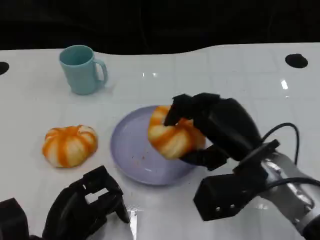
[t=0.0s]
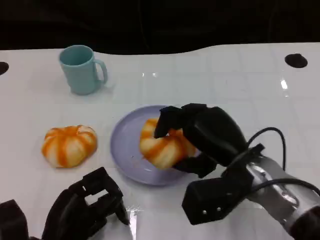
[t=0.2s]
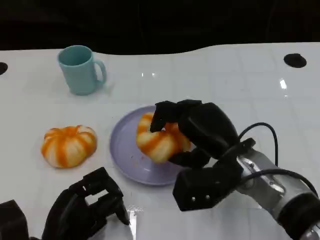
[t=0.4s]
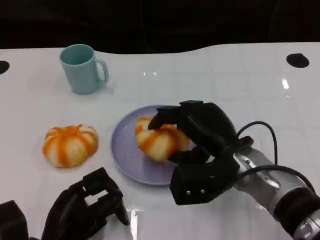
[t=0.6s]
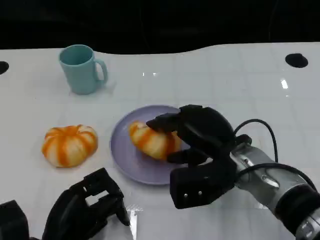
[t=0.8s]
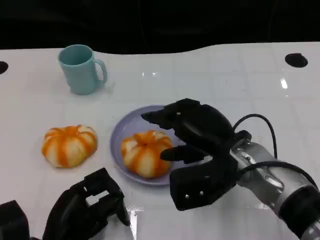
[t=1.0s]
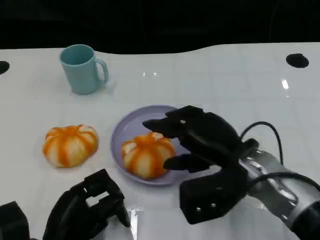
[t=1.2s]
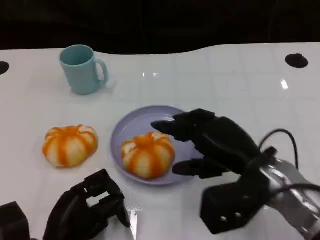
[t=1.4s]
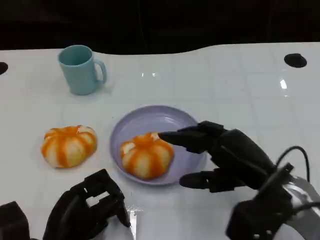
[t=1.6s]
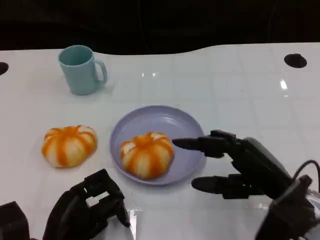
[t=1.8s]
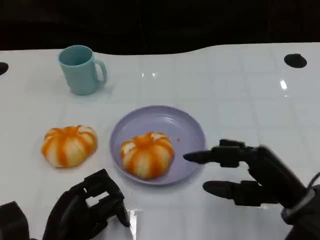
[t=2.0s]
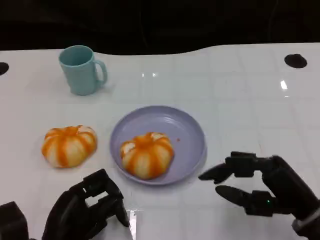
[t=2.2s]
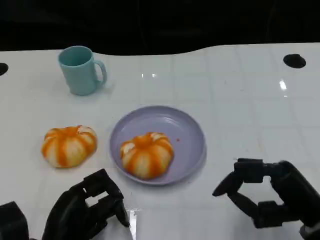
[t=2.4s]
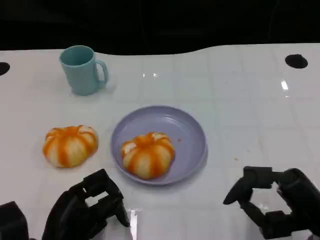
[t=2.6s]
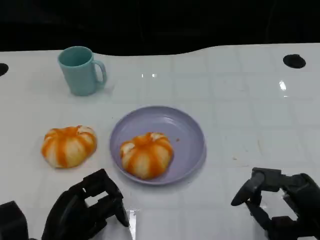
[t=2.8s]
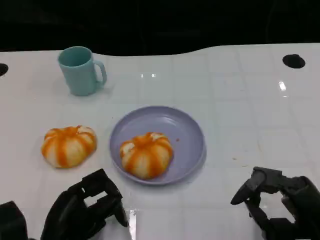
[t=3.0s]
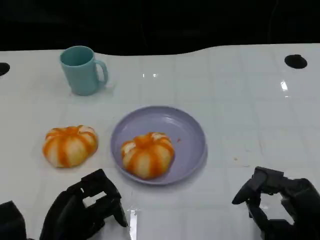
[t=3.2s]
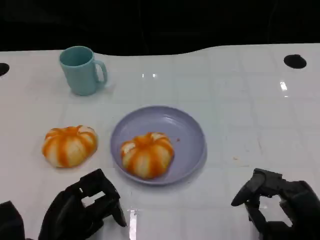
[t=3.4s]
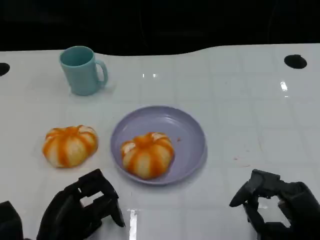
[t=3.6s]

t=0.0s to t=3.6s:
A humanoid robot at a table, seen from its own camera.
Task of the whole recording: Grasp the bread from the table and place it into the plate.
t=0.0s to t=1.8s: The right hand moves to the right, approximately 5 cm.
t=1.8s to t=3.6s: The right hand is displaced backward by some 5 cm.

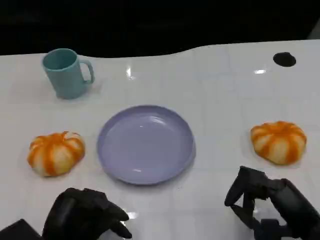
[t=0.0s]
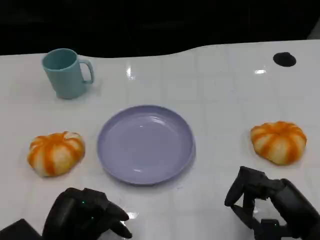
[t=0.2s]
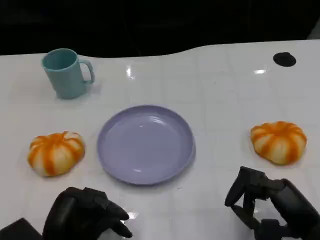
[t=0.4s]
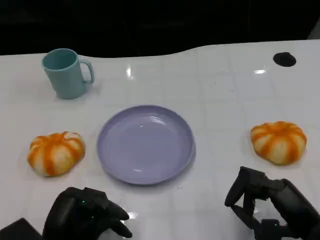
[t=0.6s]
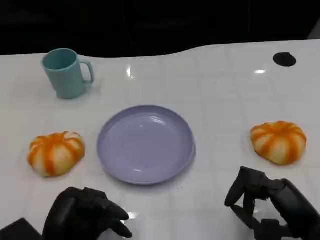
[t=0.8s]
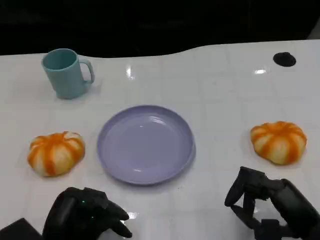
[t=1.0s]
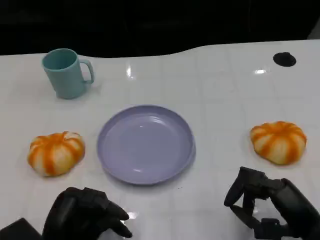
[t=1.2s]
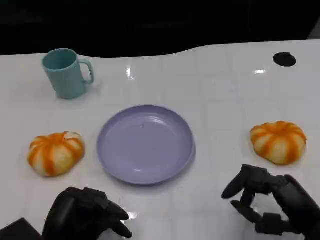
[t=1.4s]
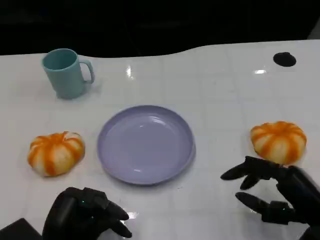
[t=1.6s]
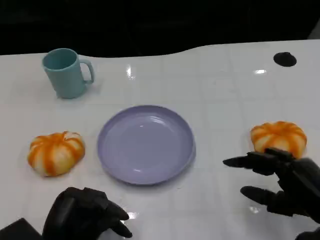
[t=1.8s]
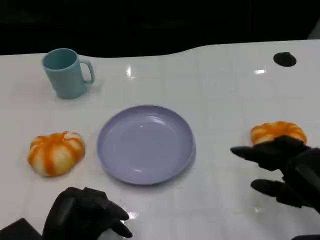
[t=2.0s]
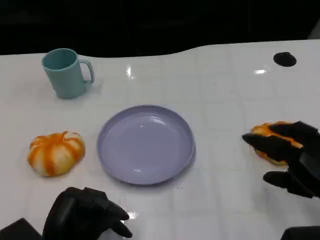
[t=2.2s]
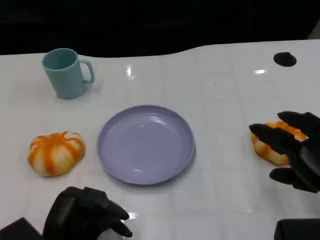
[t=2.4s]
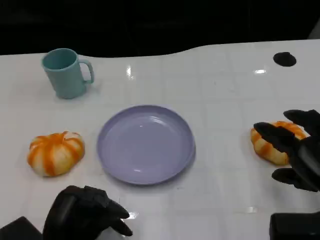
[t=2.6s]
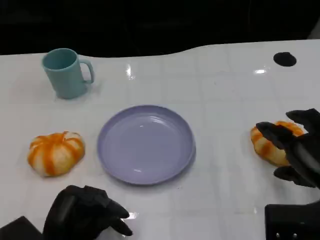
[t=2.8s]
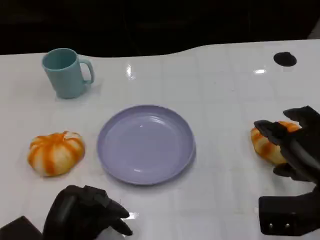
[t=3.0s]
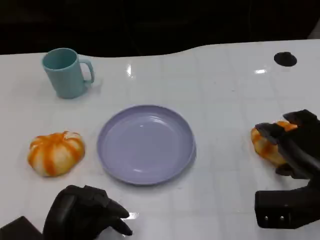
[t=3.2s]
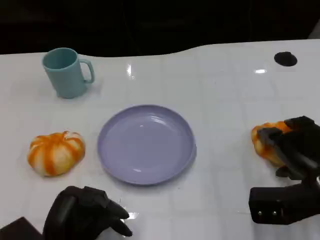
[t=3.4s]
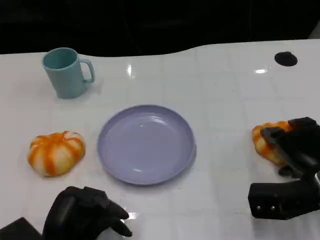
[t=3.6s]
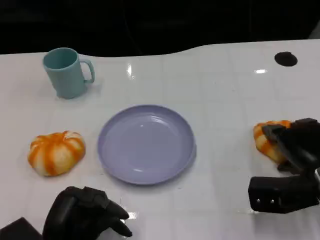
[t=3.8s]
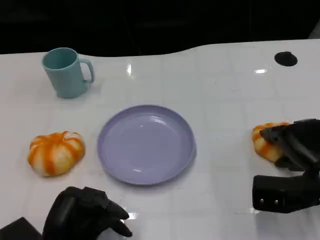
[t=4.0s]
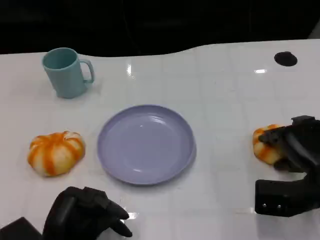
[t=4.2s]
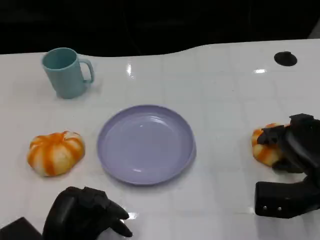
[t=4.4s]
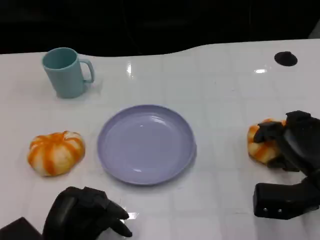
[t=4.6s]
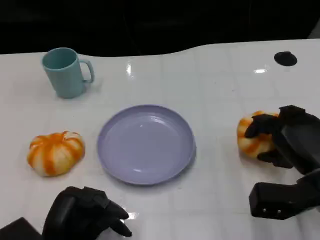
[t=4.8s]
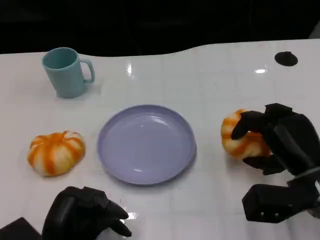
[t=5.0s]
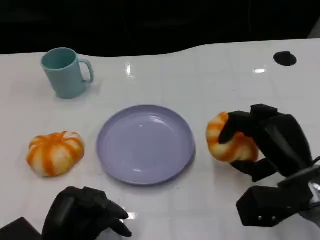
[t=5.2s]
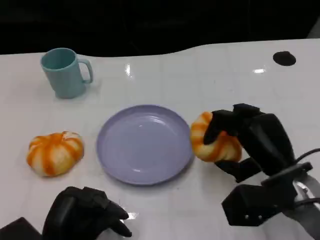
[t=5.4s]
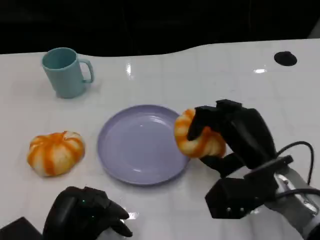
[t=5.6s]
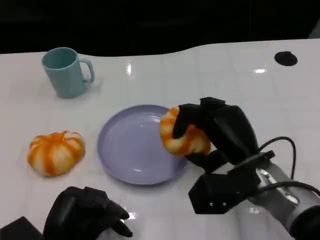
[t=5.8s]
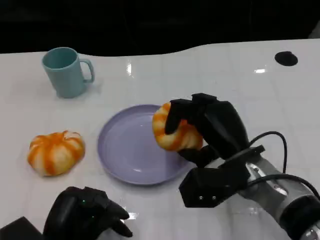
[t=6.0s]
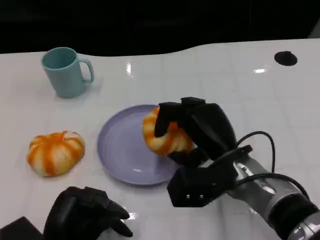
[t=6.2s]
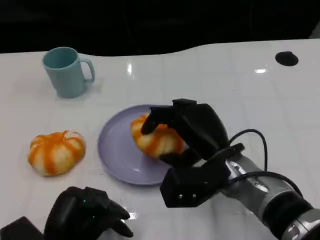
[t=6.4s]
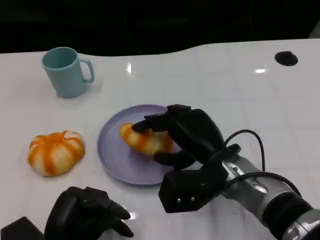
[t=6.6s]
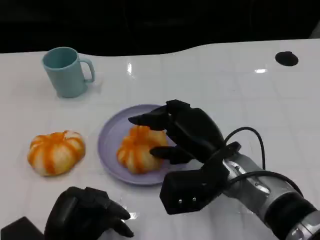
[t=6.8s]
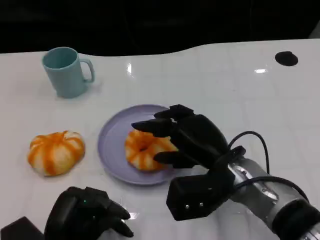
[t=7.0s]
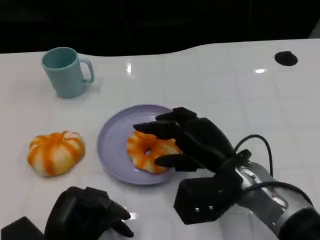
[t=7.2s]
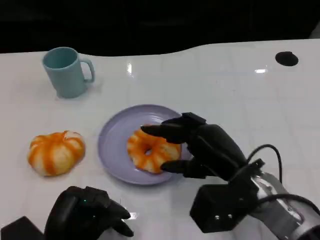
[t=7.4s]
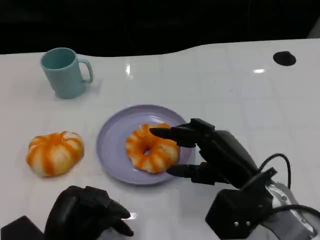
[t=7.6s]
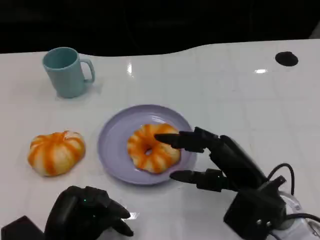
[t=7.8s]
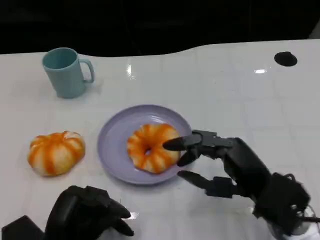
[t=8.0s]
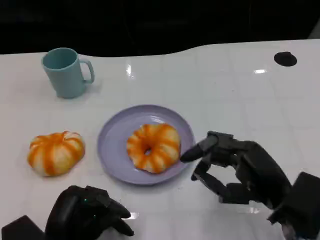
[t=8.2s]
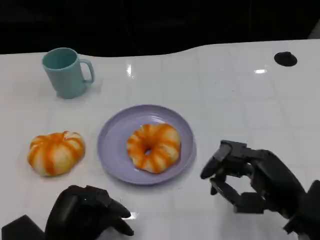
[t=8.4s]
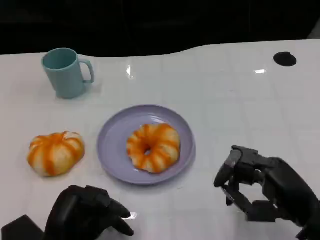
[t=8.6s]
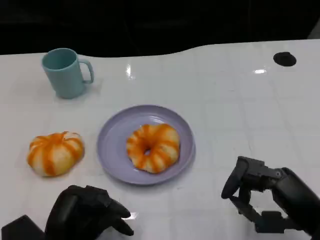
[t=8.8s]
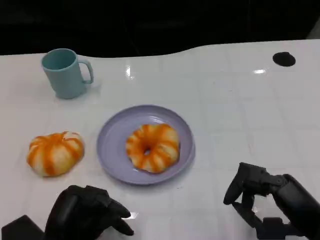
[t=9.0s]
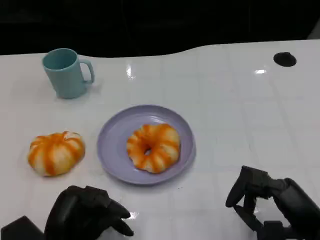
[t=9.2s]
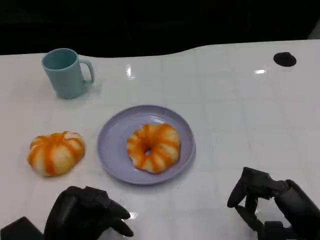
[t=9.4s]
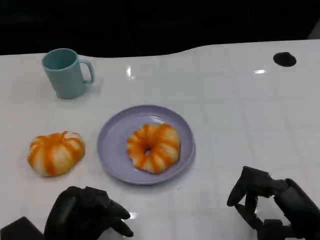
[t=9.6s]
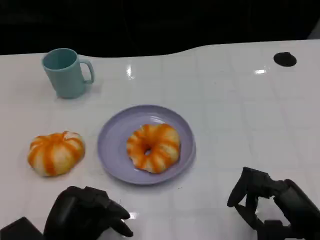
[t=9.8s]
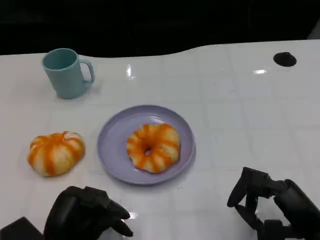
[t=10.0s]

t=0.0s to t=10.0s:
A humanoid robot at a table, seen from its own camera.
Task of the whole recording: Grasp the bread from the table and place it into the plate.
t=0.0s to t=1.4s: Both hands stay about where they are.
t=1.4s to t=2.8s: The right hand ends up some 5 cm from where it was.
t=2.8s to t=4.2s: The right hand shifts approximately 5 cm forward.
t=4.2s to t=5.8s: The right hand heads to the left, covering roughly 10 cm.
t=5.8s to t=7.2s: The hands move only a little.
t=7.2s to t=8.6s: The right hand moves to the right and backward, approximately 15 cm.
t=8.6s to t=10.0s: The hands move only a little.

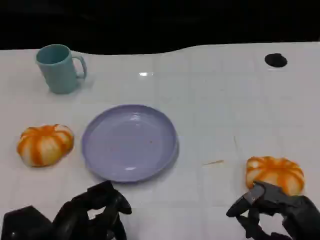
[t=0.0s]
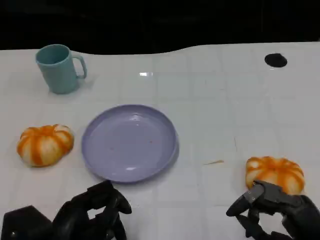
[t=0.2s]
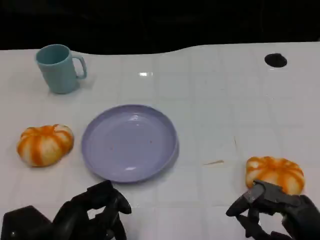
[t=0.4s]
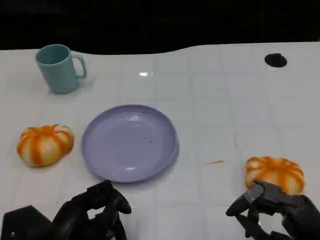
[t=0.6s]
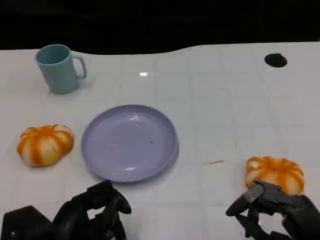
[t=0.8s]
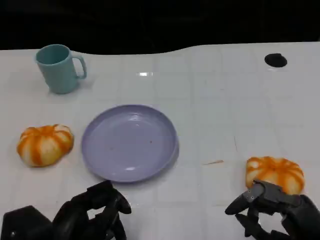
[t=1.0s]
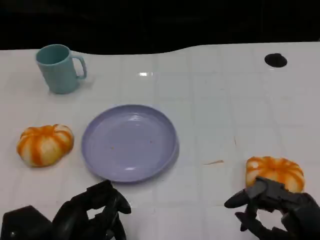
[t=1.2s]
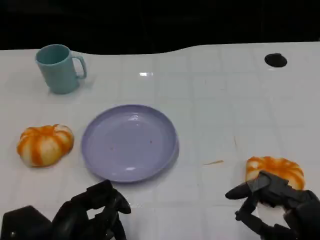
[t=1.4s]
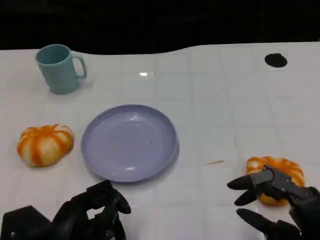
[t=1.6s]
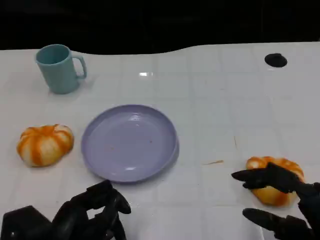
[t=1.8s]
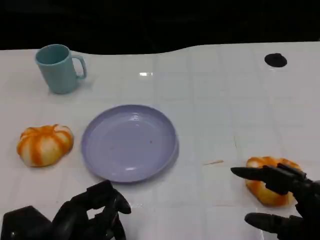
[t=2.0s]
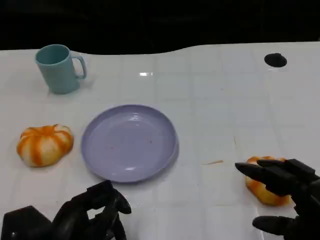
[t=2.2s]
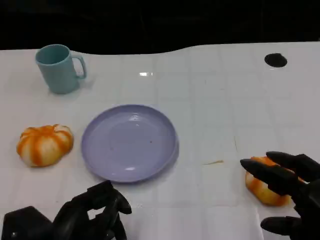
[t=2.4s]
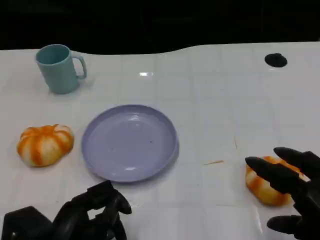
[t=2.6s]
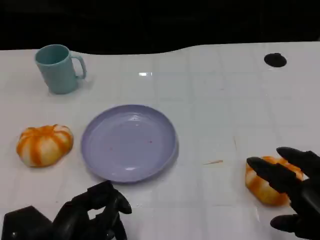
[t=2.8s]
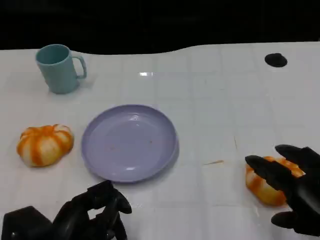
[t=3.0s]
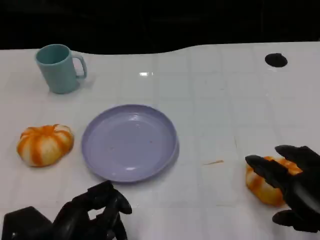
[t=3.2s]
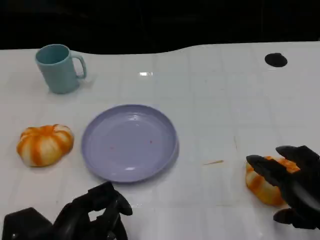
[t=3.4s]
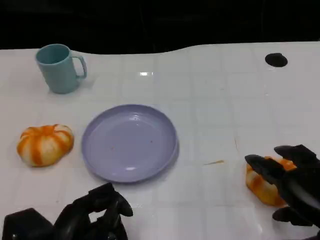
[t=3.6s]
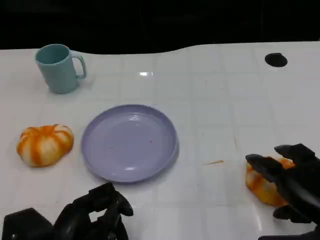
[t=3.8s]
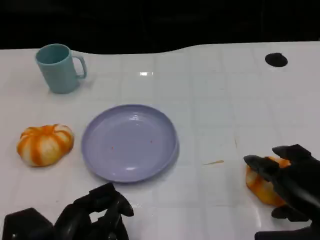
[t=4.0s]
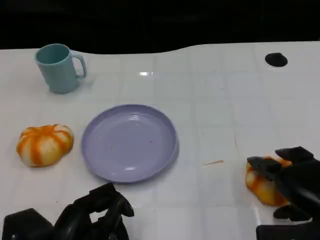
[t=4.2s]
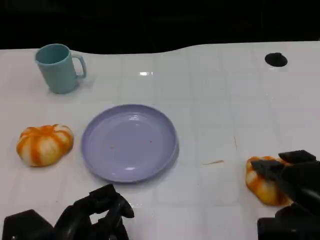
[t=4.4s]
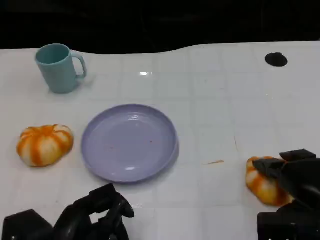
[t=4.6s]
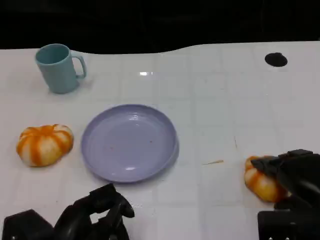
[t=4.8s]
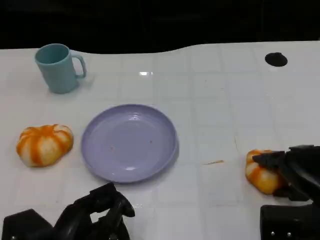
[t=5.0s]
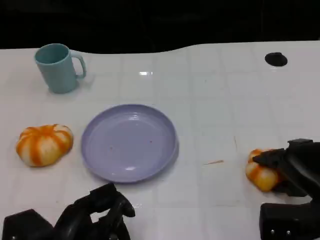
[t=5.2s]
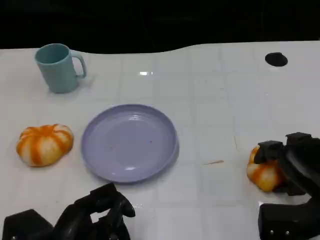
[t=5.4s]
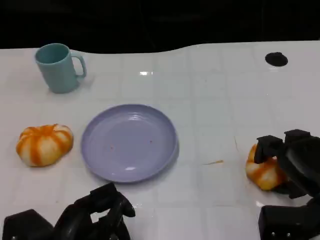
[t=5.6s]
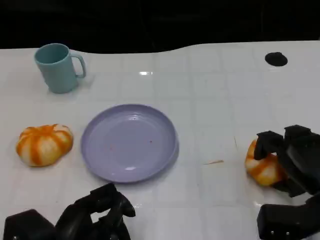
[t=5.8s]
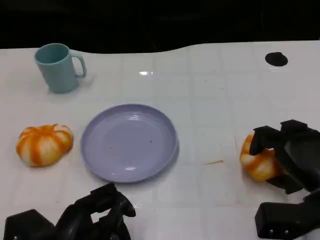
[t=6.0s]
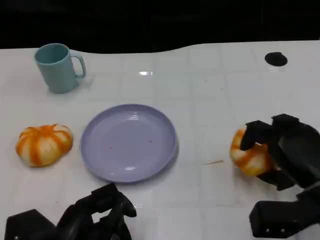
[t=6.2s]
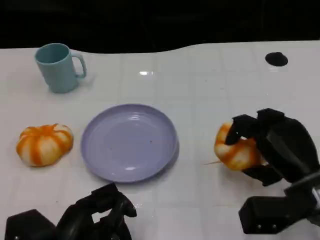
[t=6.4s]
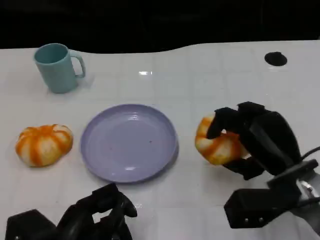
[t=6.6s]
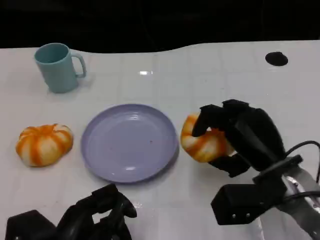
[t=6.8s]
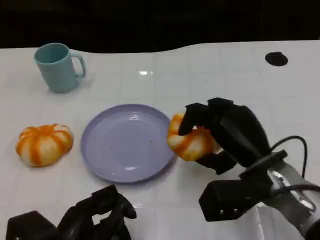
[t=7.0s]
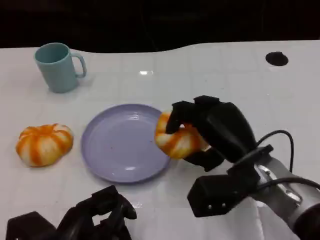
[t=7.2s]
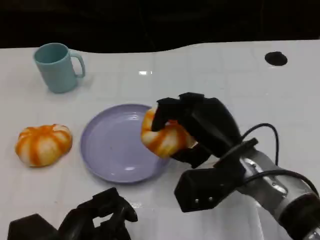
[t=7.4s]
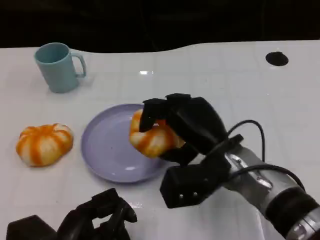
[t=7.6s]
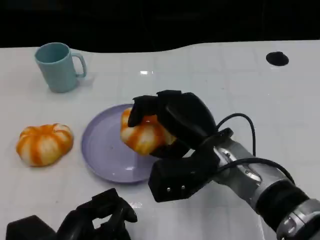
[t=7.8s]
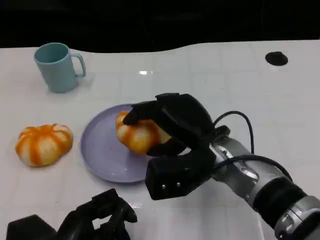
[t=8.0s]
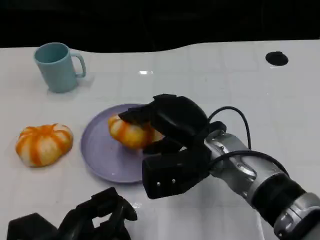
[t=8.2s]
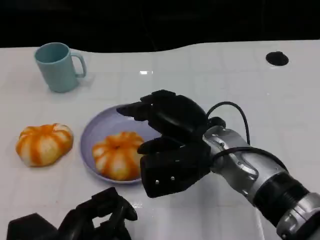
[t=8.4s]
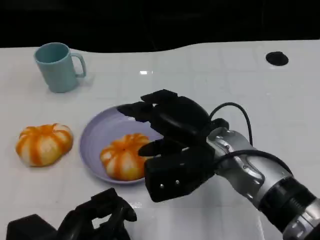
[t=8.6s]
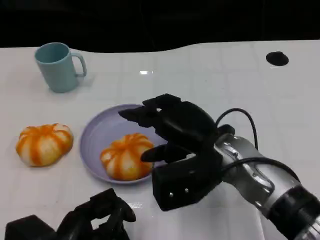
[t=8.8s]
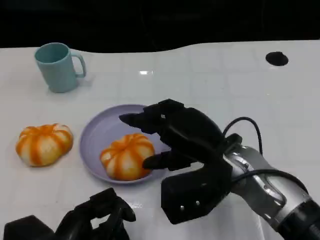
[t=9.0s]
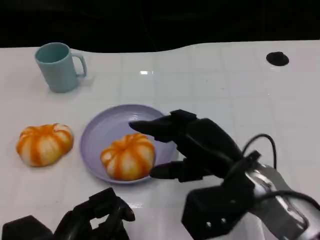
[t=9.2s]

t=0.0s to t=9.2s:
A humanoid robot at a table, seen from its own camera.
Task of the whole recording: Grasp the bread from the table and place it into the plate.
t=0.0s to t=1.6s: There are only small adjustments of the hands.
t=3.0s to t=4.6s: The right hand goes some 5 cm forward.
t=6.2s to t=7.6s: The right hand shifts roughly 15 cm to the left.
t=7.6s to t=9.2s: The right hand changes place by about 5 cm.
